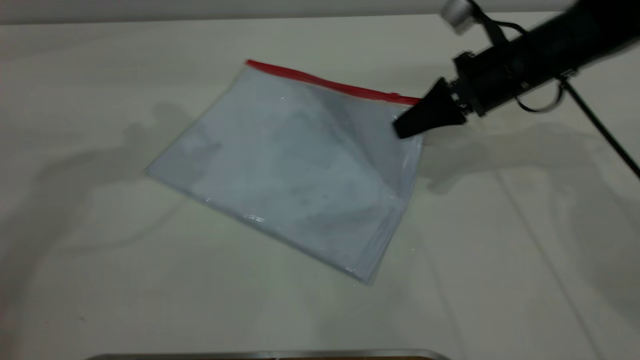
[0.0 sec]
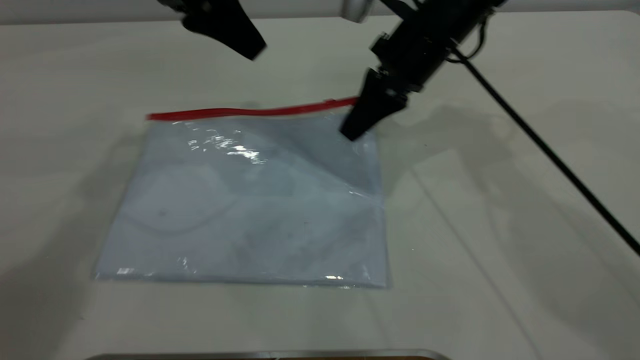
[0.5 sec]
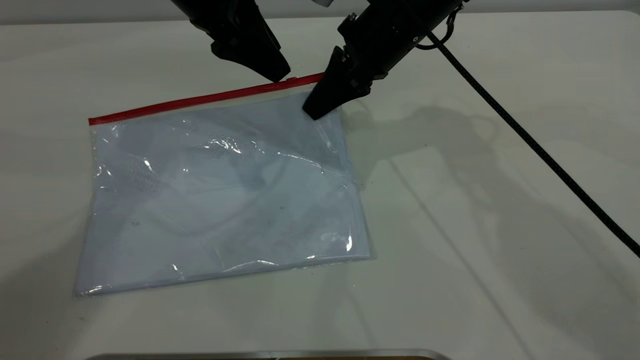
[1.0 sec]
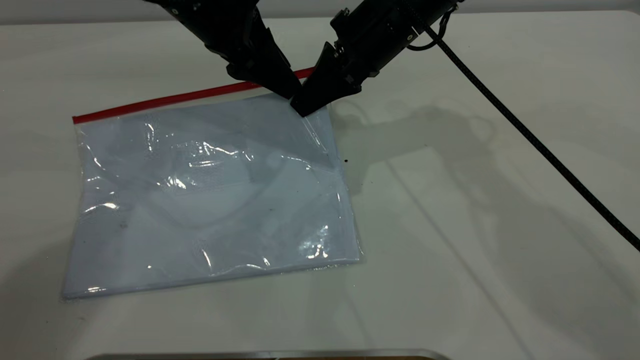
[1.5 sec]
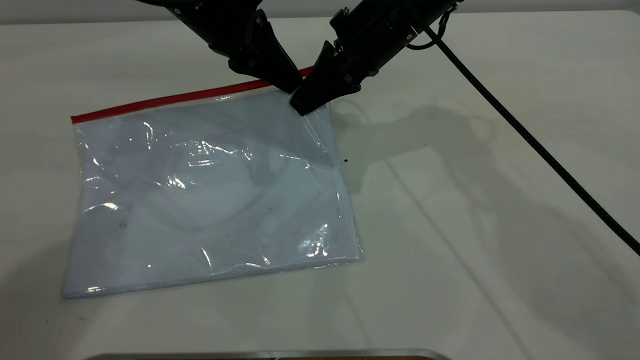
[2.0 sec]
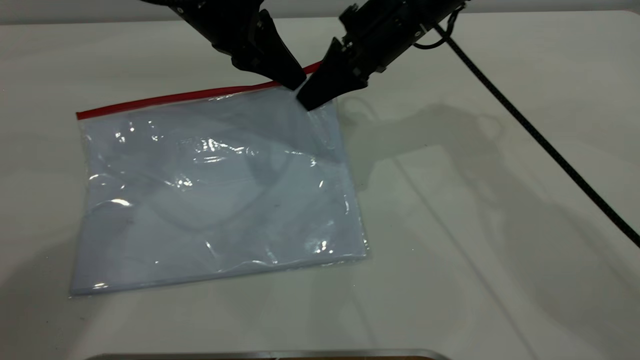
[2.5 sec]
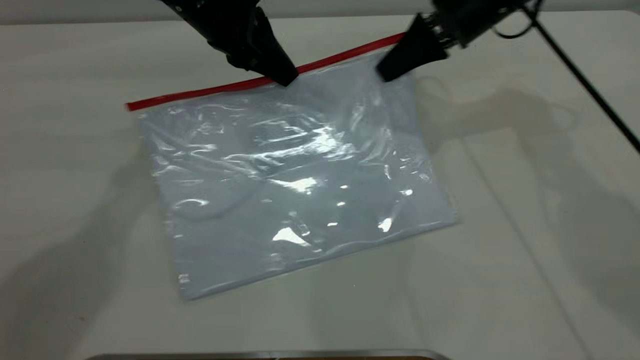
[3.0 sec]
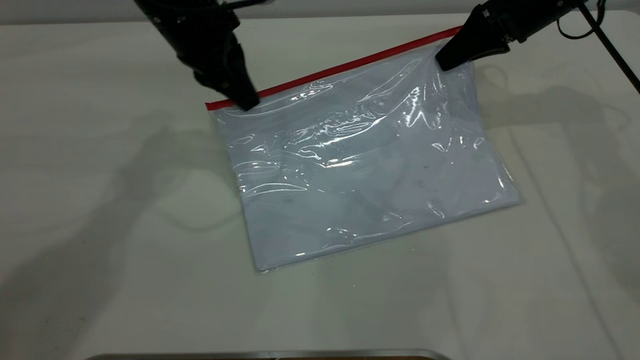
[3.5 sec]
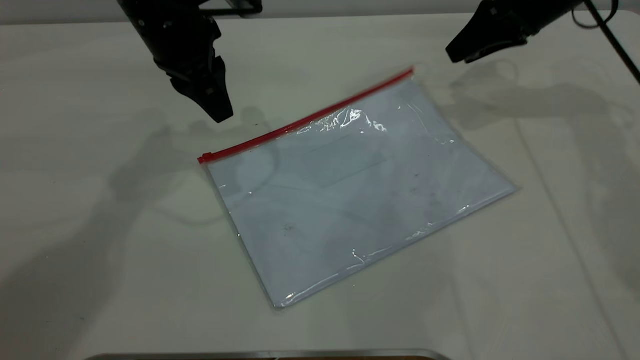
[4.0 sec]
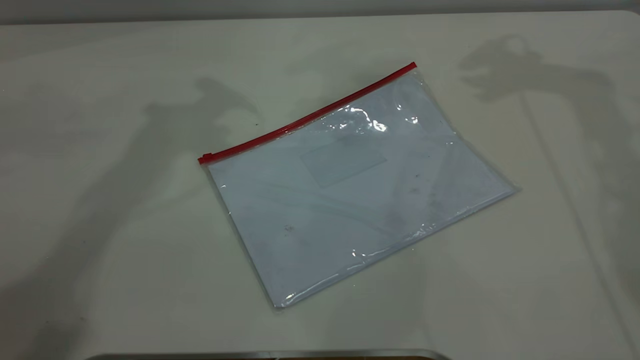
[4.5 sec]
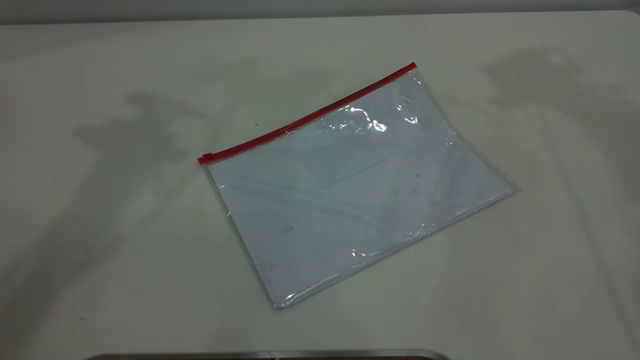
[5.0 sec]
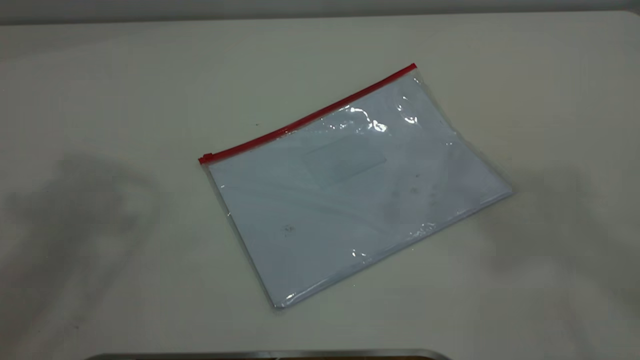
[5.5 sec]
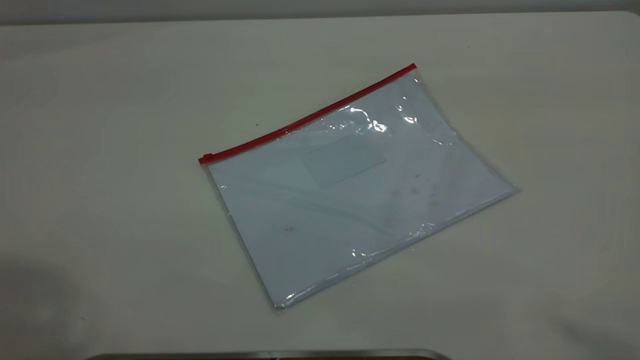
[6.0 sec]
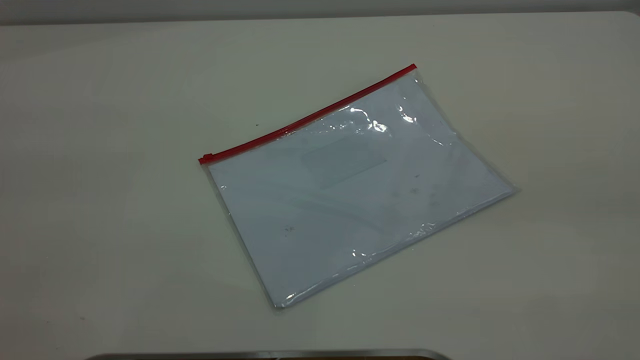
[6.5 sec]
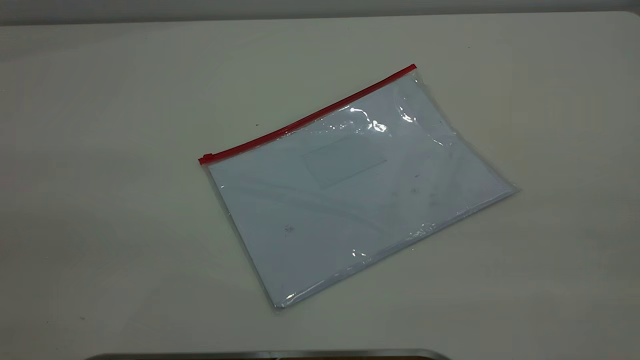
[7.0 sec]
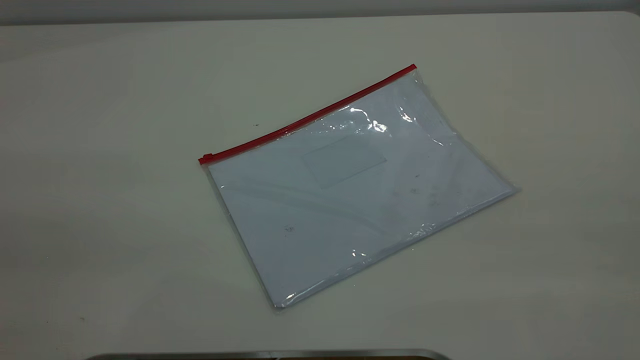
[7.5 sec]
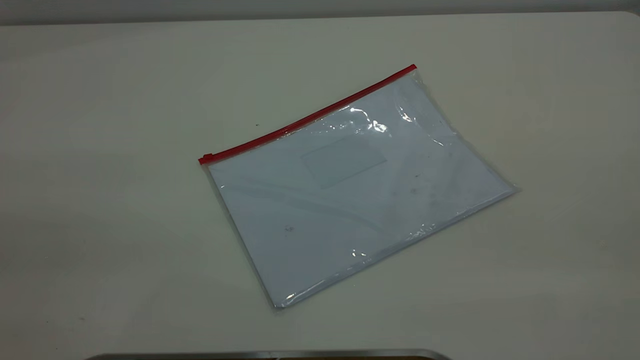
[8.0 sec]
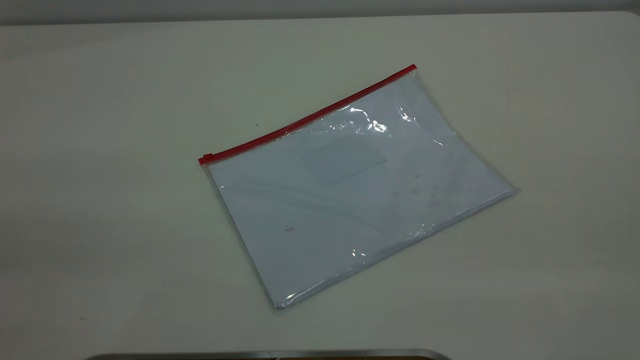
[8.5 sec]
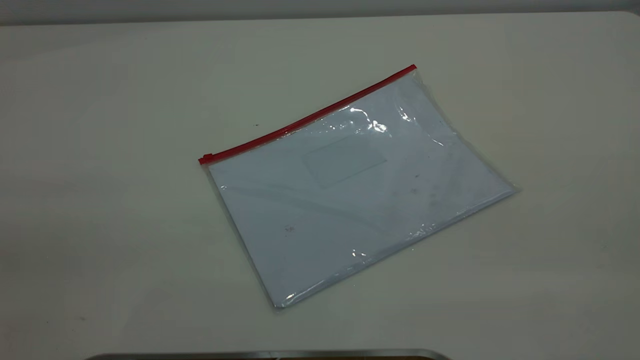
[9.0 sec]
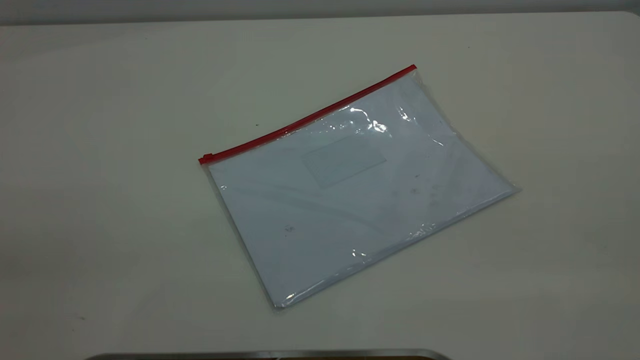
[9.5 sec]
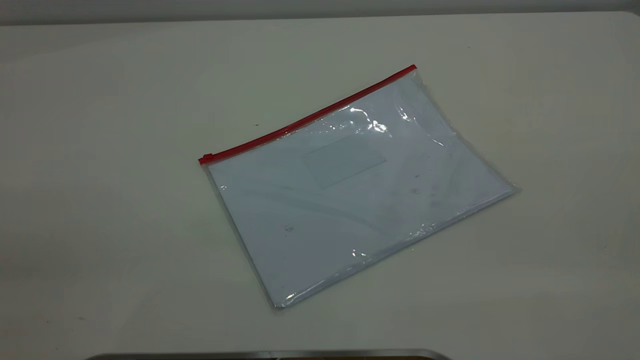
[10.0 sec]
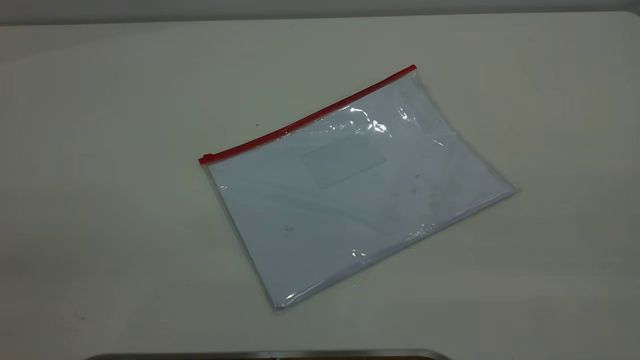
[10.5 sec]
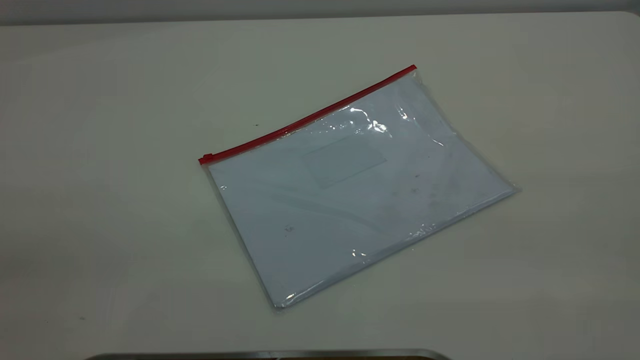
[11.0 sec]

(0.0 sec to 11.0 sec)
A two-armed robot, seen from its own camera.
Step, 0.5 sec - 3.5 sec: Pulling up the zipper on the transparent plastic bag with the left gripper to close it.
Step, 4.0 sec - 4.5 sec: Place the transparent plastic bag.
0.0 sec - 2.0 sec: The left gripper heads downward and to the right, covering some 15 cm, and closes its fingers. Meanwhile the right gripper travels to the left and upward by some 15 cm.
2.0 sec - 3.5 sec: The right gripper moves to the right, approximately 20 cm.
3.5 sec - 5.5 sec: Both grippers move upward and backward, some 40 cm. The right gripper opens up. The left gripper opens up.
